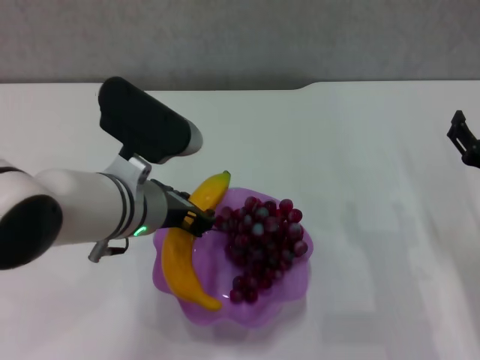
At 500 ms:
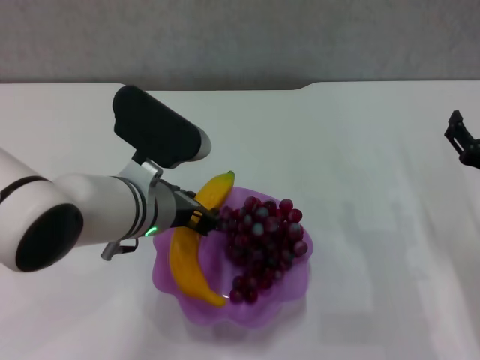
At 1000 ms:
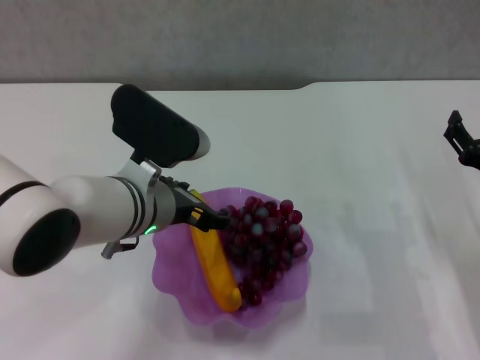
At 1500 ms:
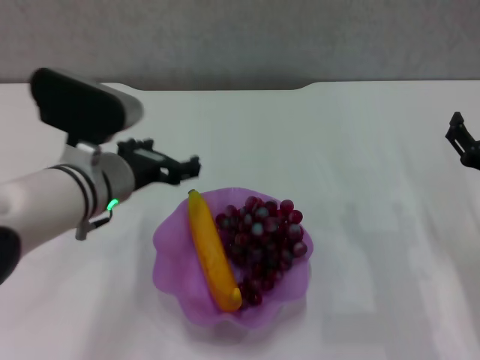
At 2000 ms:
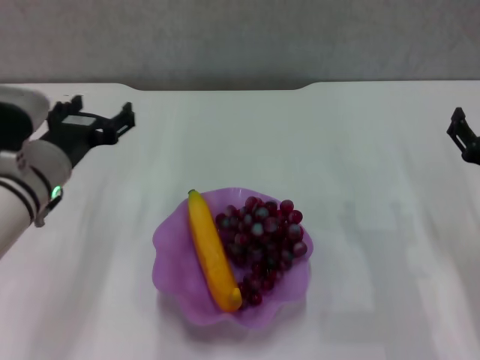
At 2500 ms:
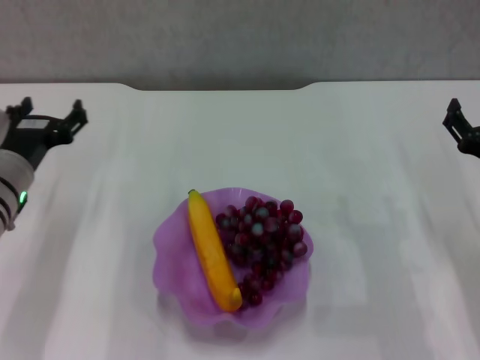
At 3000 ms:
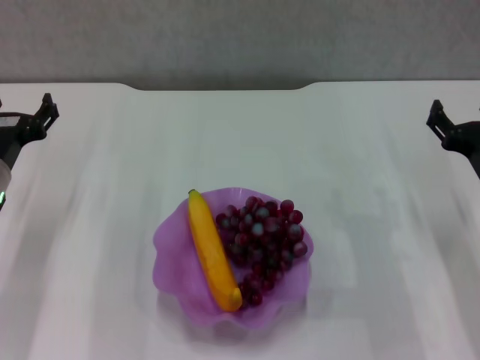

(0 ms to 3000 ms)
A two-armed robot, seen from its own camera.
0 ms - 1500 ms: The left gripper opens up.
1500 ms - 3000 ms: The left gripper is displaced to the left and downward by roughly 15 cm.
